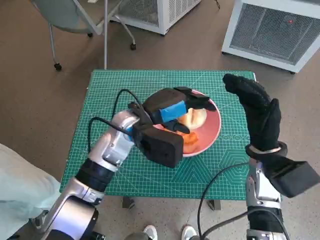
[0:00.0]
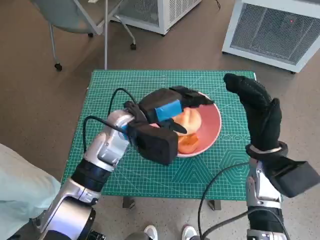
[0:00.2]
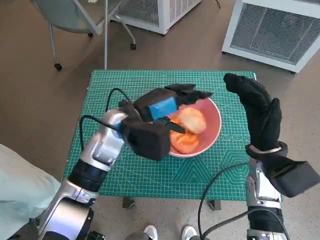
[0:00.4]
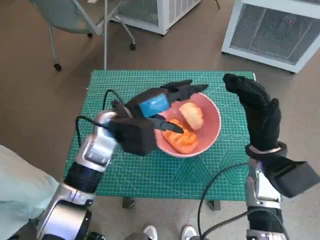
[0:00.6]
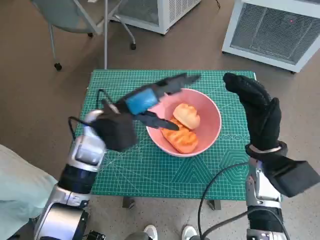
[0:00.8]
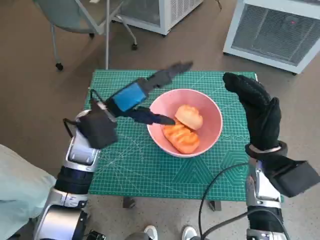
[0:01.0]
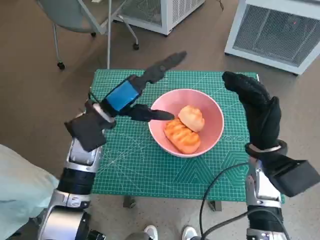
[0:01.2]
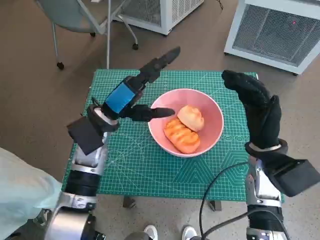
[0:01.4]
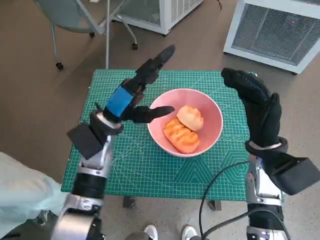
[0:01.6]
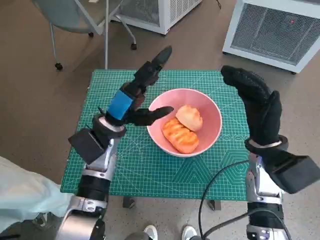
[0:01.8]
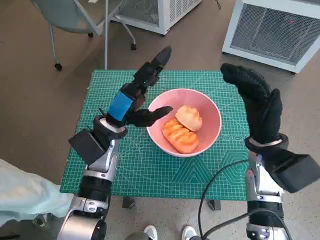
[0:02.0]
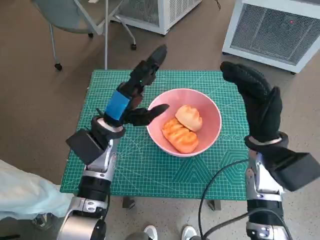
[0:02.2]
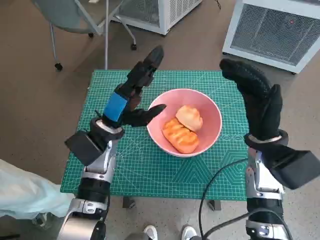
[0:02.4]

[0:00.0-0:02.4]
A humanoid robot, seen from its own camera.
Task of the whole recording: Push the bowl into the center of the table and put the bread into the bowl.
0:00.0 to 0:01.2: The left hand is displaced to the left by approximately 5 cm.

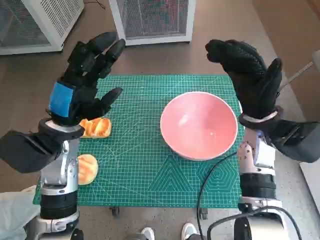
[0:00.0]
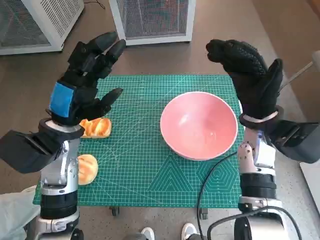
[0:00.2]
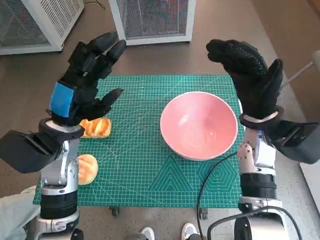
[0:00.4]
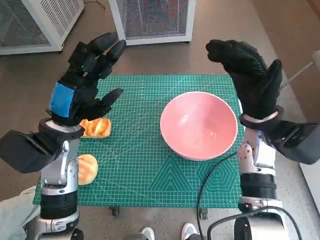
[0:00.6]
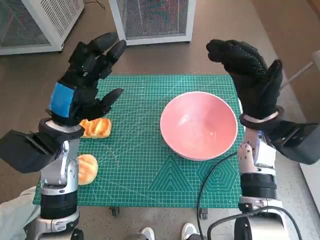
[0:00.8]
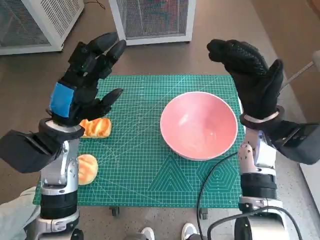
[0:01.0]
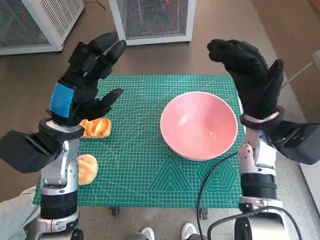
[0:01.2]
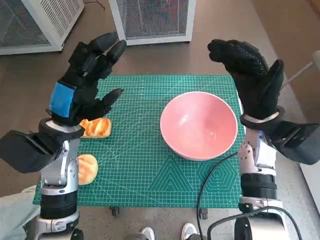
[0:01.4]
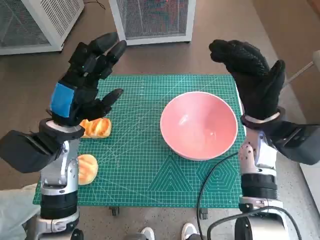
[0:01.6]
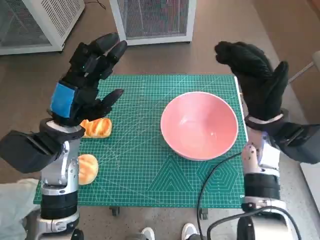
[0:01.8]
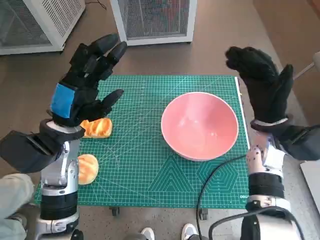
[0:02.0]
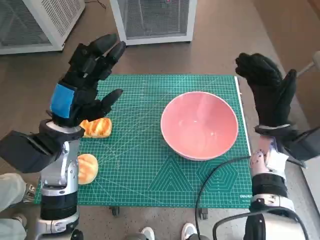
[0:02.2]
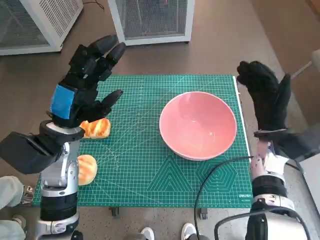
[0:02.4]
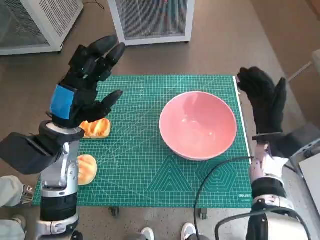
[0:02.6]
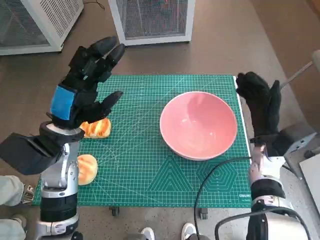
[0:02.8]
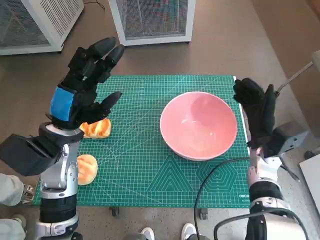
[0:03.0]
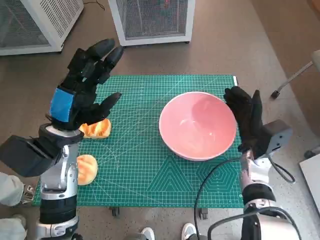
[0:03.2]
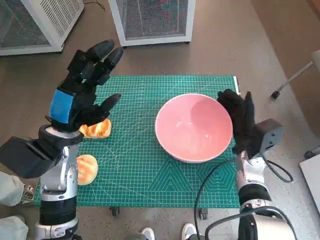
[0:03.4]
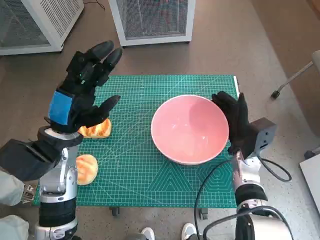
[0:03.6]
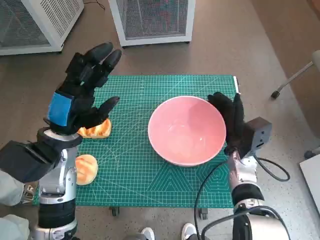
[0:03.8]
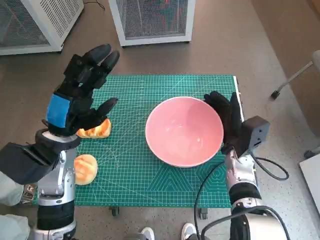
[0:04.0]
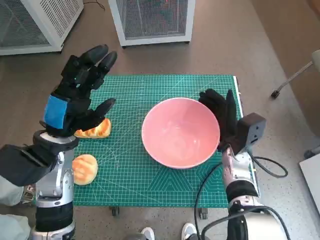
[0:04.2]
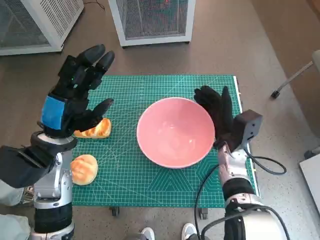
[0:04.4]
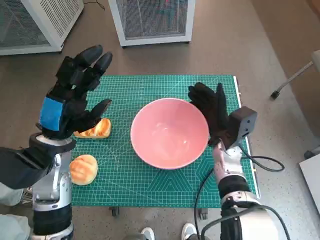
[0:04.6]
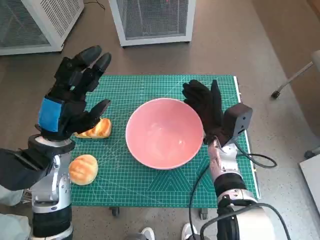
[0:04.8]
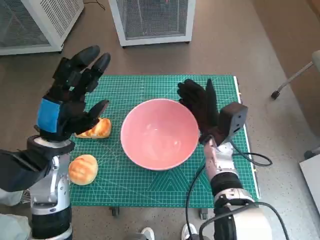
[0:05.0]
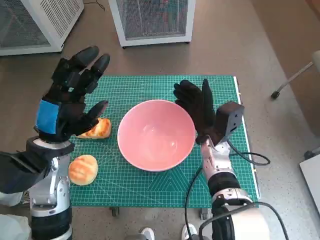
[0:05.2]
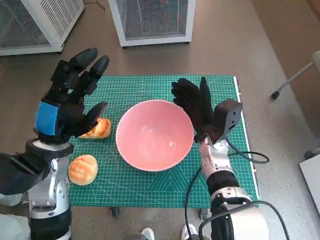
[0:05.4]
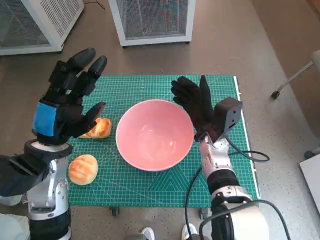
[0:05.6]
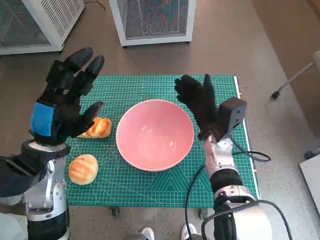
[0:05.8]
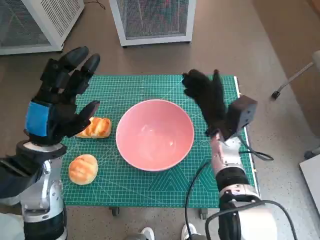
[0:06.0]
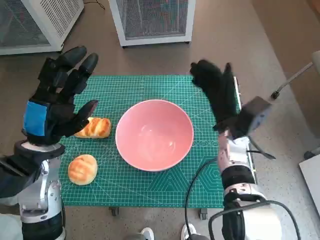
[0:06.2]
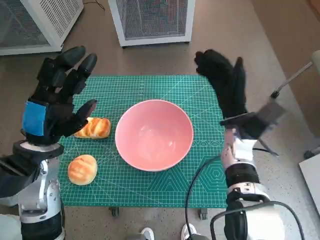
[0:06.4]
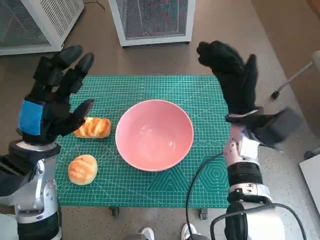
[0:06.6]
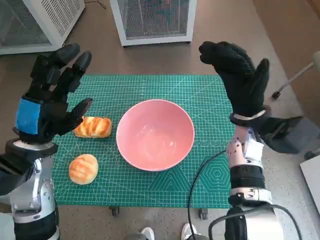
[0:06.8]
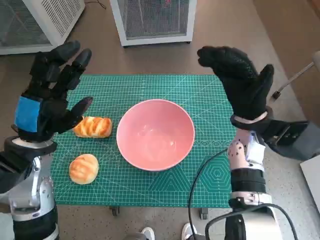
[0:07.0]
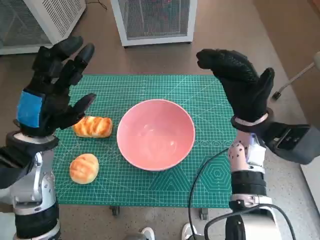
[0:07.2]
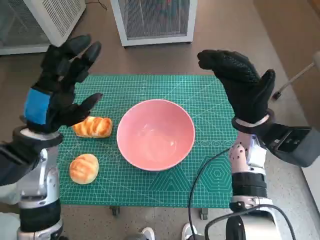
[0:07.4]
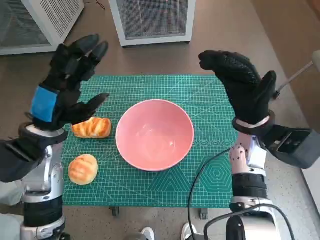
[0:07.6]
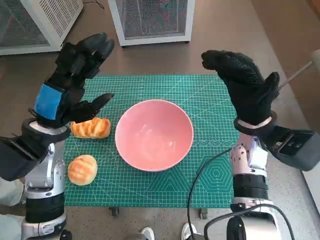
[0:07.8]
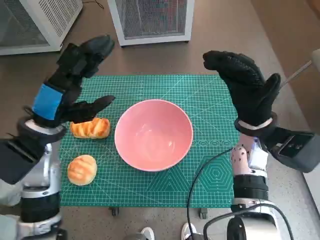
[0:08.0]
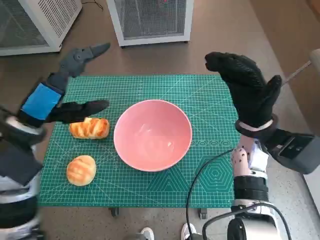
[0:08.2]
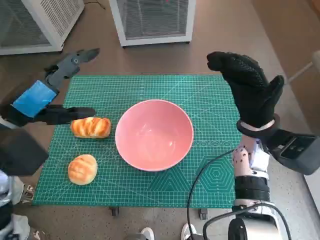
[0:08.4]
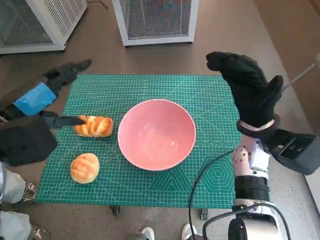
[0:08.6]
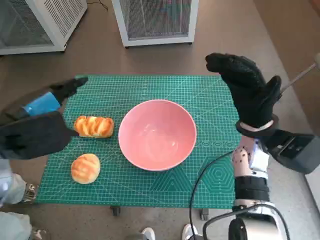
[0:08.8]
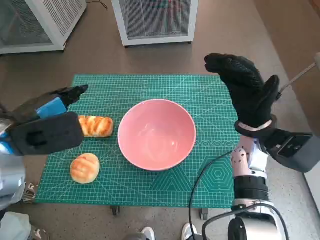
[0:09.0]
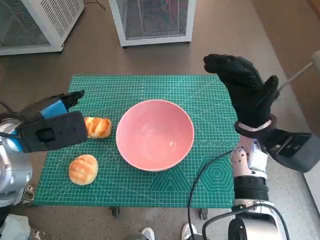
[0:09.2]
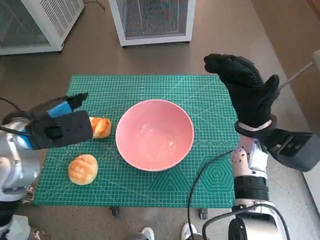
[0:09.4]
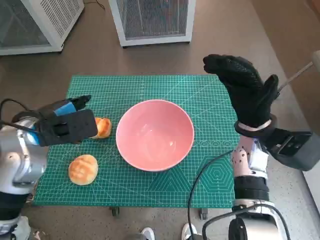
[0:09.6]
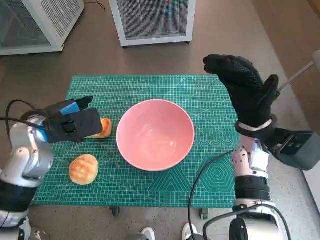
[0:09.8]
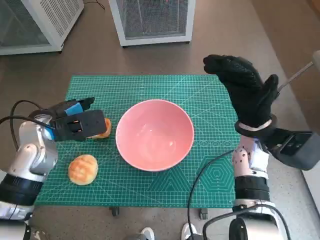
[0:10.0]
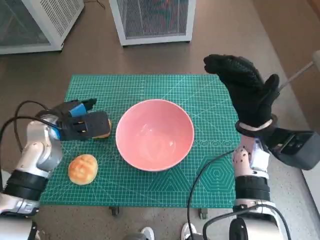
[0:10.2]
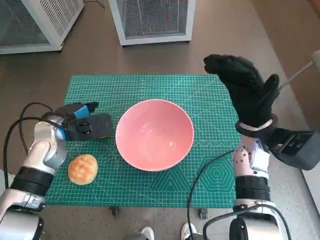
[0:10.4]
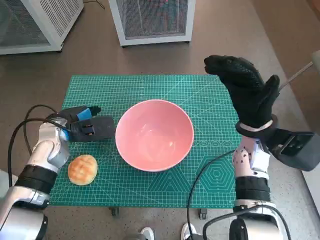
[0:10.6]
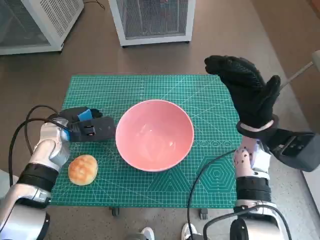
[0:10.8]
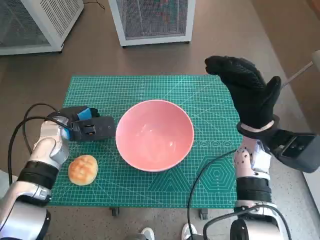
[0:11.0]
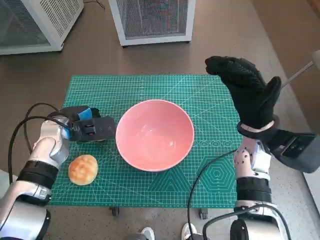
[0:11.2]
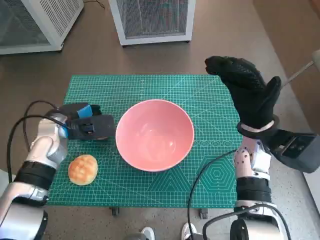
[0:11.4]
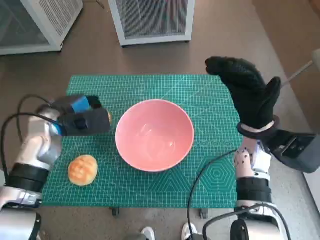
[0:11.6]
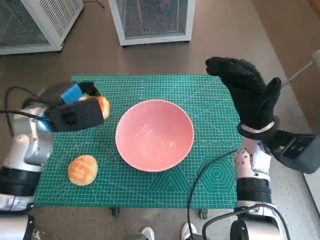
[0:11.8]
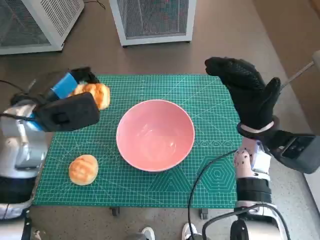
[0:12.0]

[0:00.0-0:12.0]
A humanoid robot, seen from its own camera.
Task of the whole recording: Push the bowl into the center of the table and put the bread into the bowl.
Step, 0:00.0 to 0:05.8: Move the pink bowl to the center of table with right hand.
Step, 0:06.0 to 0:10.6: Grasp the long bread with left hand.
0:01.6 to 0:03.0: The right hand moves downward, about 10 cm.
0:03.0 to 0:04.4: The right hand goes roughly 5 cm to the left.
0:06.0 to 0:07.6: The right hand heads upward, covering roughly 5 cm.
0:07.6 to 0:09.0: The left hand is displaced upward by some 5 cm.
0:09.0 to 0:10.4: The left hand travels downward and forward by roughly 10 cm.
0:10.4 to 0:12.0: The left hand travels upward by about 10 cm.

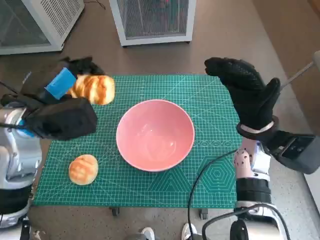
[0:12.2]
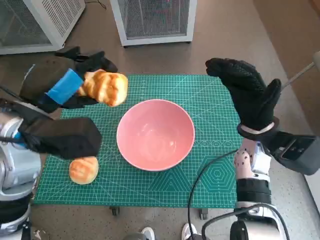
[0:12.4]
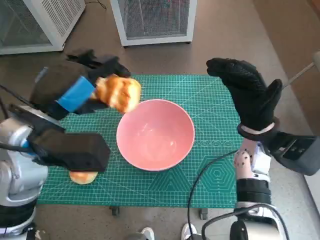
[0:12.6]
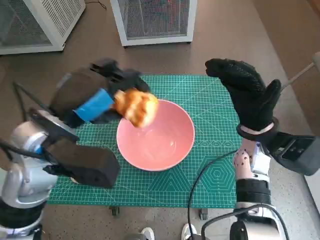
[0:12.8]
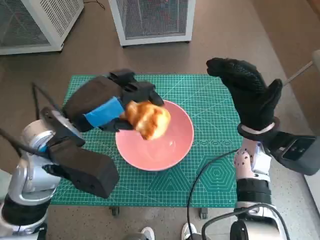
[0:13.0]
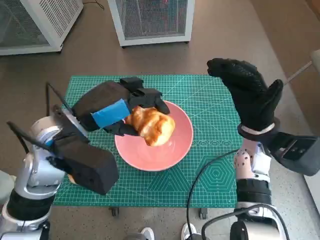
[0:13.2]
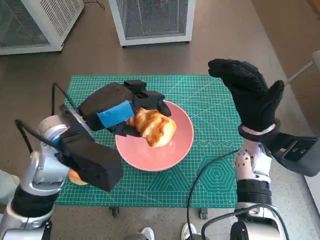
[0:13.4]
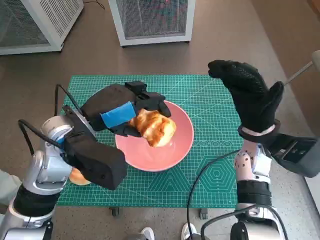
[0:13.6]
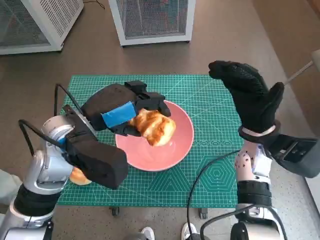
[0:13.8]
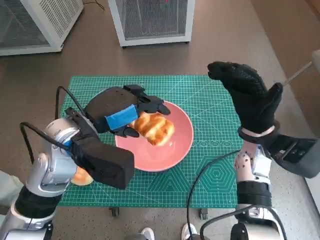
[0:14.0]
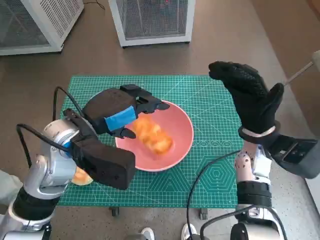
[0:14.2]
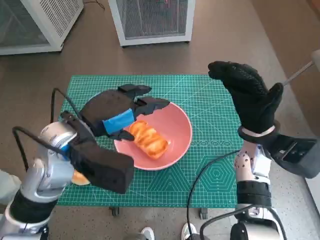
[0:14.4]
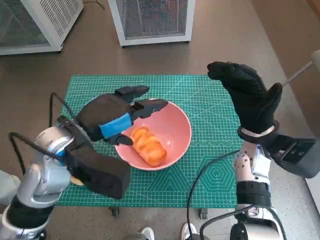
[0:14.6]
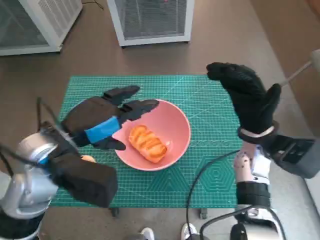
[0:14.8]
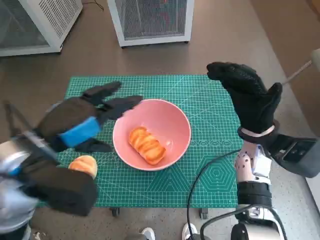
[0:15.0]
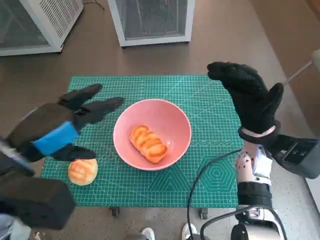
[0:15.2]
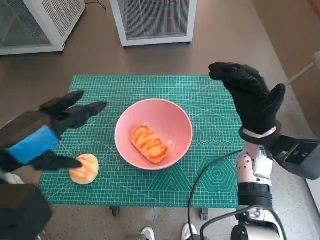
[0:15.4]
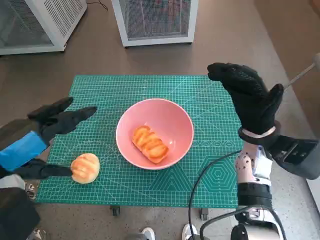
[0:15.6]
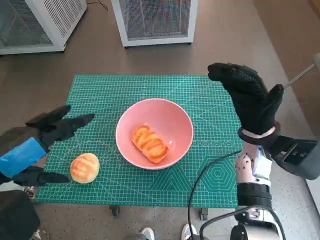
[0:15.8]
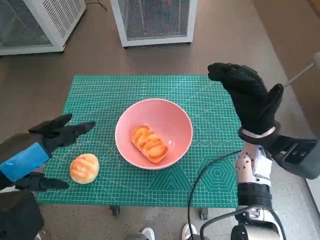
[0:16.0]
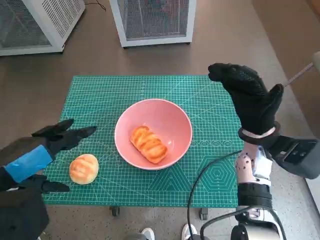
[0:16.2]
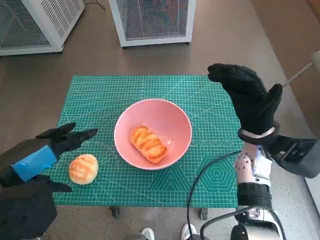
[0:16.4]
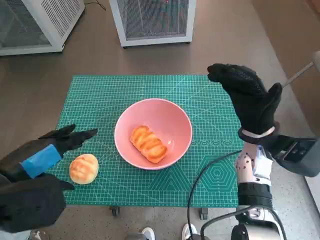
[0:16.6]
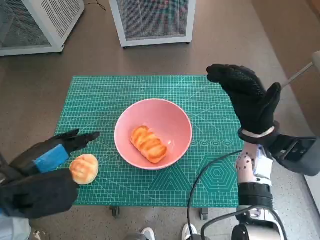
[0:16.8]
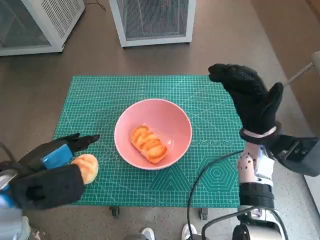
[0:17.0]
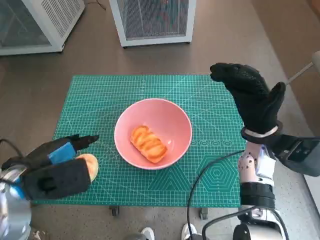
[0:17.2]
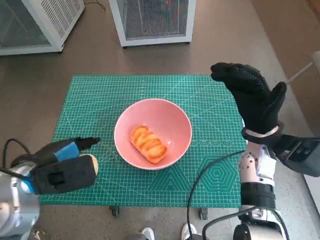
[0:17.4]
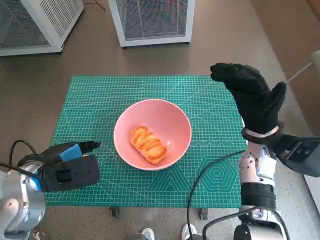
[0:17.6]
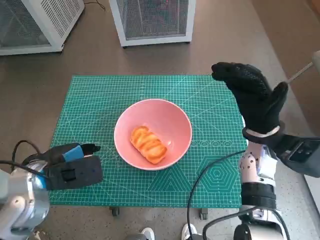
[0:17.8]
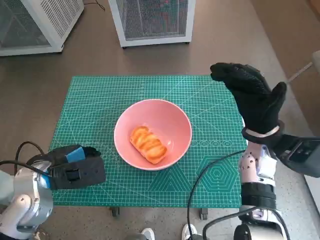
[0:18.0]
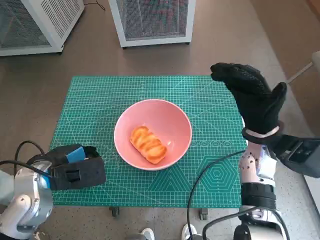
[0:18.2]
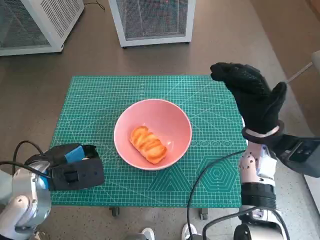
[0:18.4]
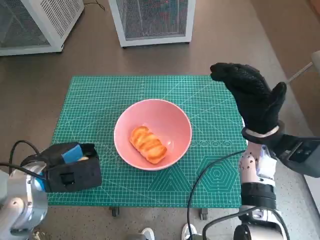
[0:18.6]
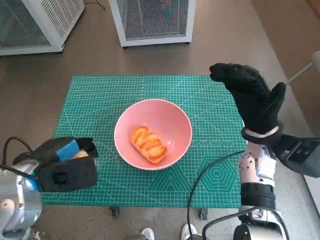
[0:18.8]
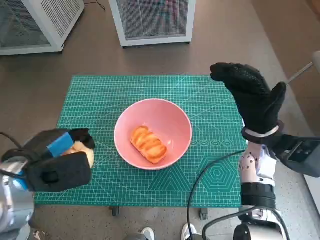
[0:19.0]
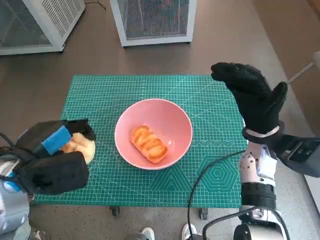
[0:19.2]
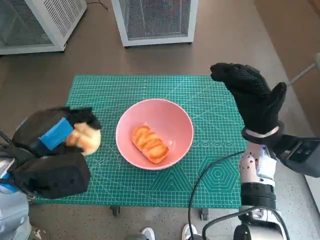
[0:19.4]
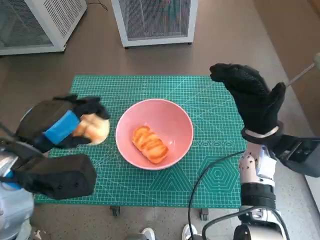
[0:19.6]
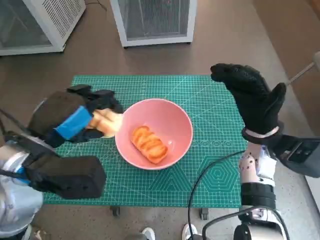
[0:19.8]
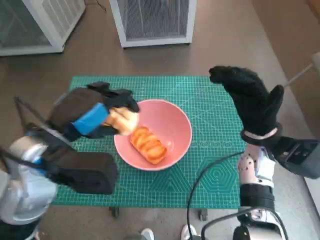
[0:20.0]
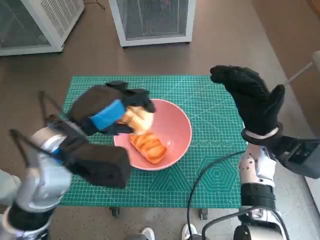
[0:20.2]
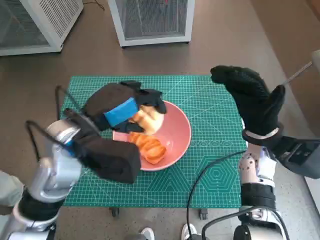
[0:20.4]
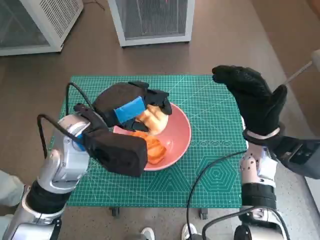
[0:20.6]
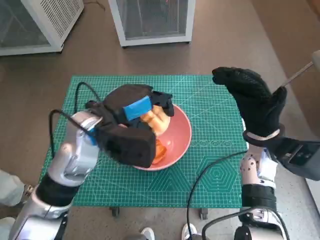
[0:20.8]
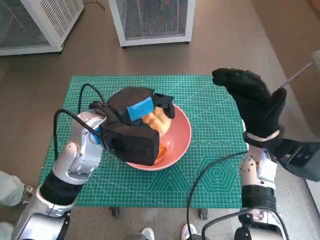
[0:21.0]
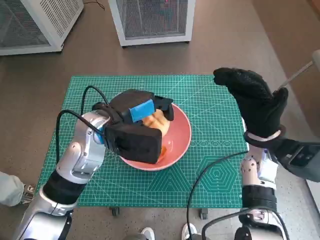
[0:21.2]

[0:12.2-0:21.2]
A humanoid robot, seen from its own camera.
Task of the whole recording: Push the bowl into the center of the table and put the bread into the bowl.
Step, 0:12.2 to 0:14.2: Place the long bread in pink bowl with left hand.
Step, 0:14.4 to 0:18.2: Grasp the round bread with left hand.
0:12.2 to 0:13.8: The left hand goes approximately 5 cm to the right.
0:13.8 to 0:15.2: The left hand heads backward and to the left, covering some 10 cm.
0:16.6 to 0:18.2: The left hand goes roughly 10 cm downward and forward.
0:18.2 to 0:19.8: The left hand shifts approximately 10 cm upward.
0:19.8 to 0:21.2: The left hand moves forward and to the right, some 10 cm.
